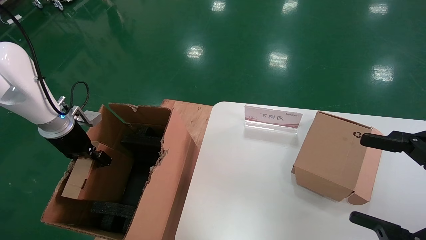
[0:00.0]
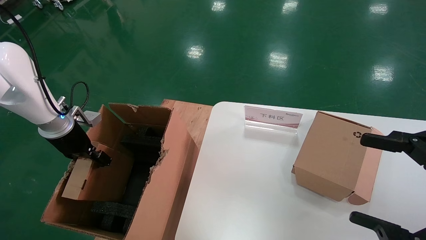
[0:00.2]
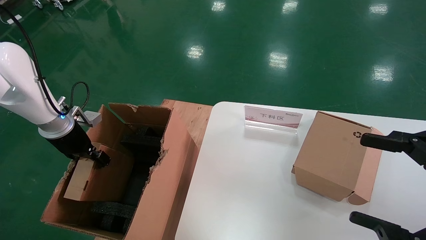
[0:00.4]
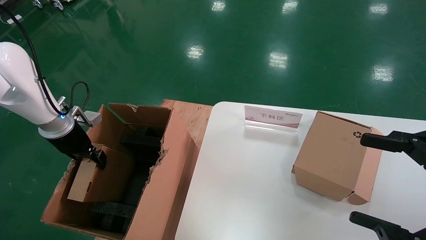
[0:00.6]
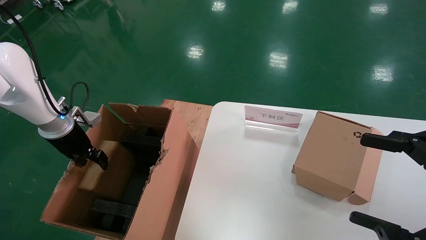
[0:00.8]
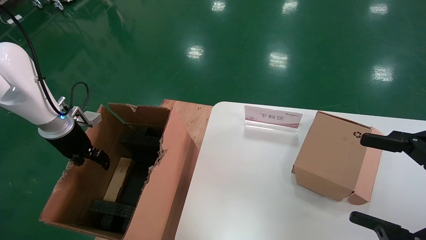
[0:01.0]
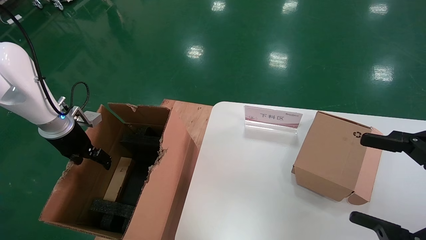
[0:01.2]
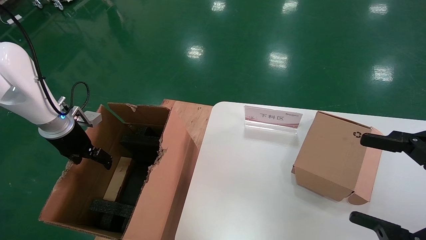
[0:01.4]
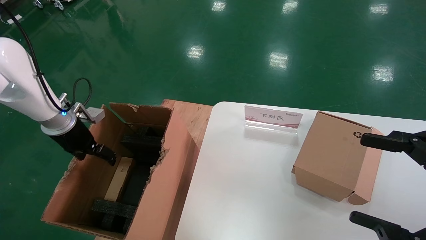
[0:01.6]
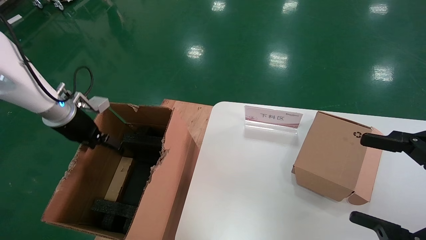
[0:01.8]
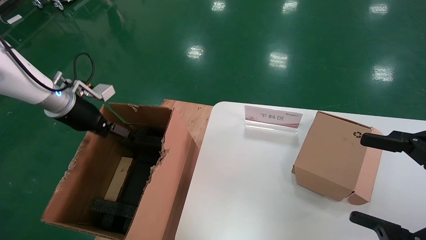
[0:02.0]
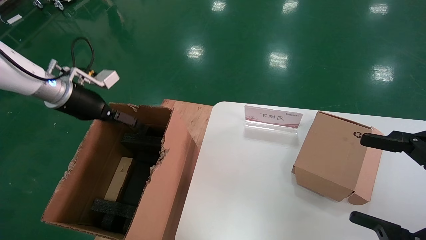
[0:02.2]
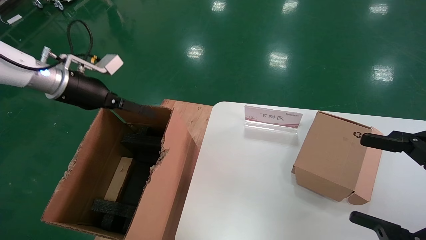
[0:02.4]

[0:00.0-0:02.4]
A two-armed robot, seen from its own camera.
Task of the whole recording: put the box on the table into the big box.
0:00.0 to 0:01.2: The left gripper opens its fingers.
0:01.2 to 0:02.4: The left gripper goes some 10 cm upward, and opens its fingers.
